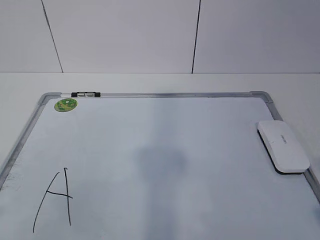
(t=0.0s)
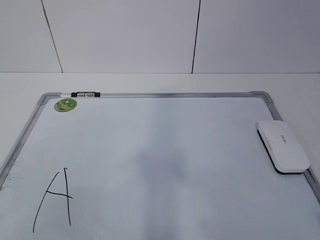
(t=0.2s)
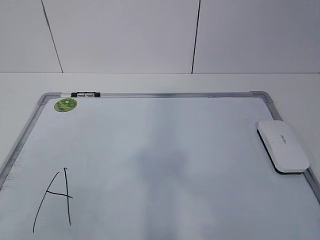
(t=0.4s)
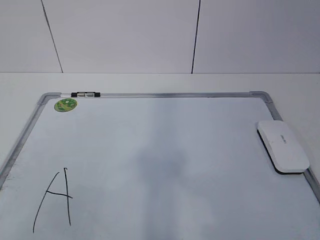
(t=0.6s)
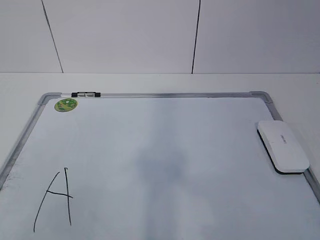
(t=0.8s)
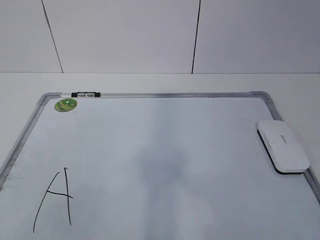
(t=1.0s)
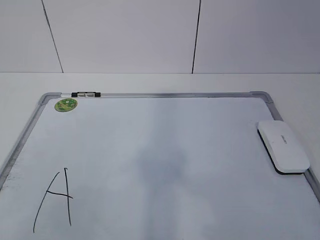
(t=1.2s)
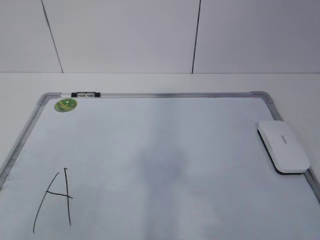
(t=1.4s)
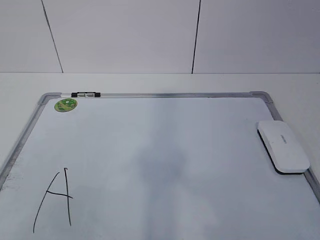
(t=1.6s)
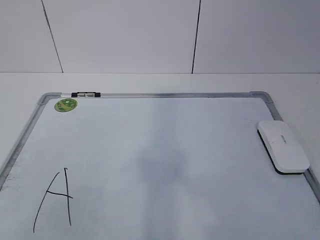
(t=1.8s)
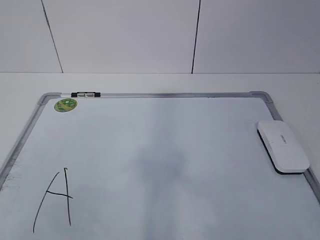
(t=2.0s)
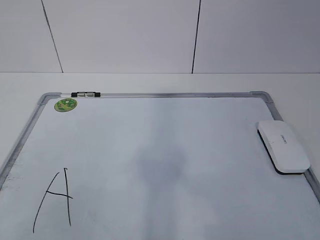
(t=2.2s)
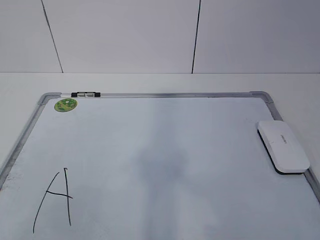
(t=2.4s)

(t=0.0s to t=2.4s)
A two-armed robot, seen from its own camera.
Task of the whole recording: pick up the eraser on the blackboard and erase the letter "a".
t=1.2s - t=2.4s: Both grippers stay about where they are.
